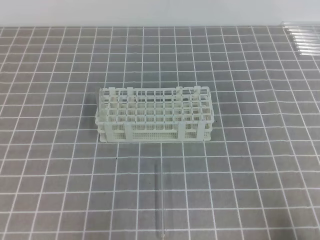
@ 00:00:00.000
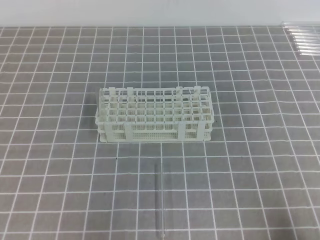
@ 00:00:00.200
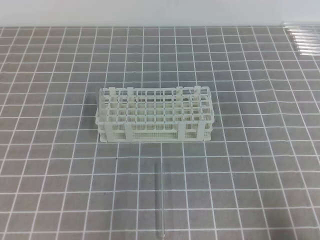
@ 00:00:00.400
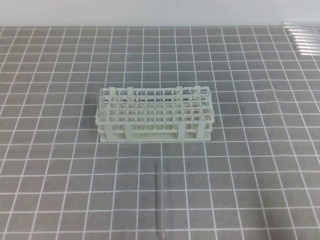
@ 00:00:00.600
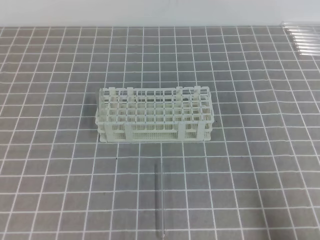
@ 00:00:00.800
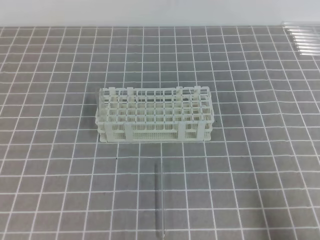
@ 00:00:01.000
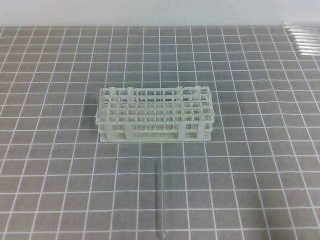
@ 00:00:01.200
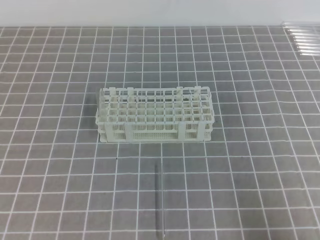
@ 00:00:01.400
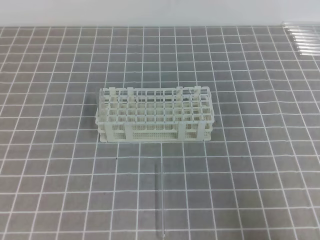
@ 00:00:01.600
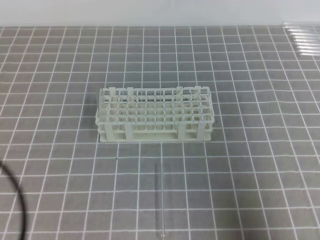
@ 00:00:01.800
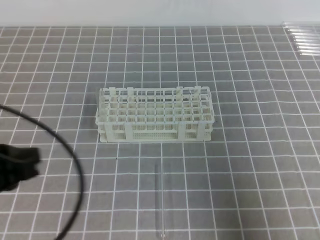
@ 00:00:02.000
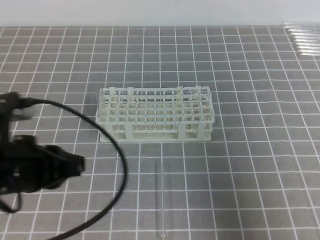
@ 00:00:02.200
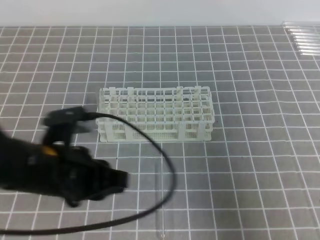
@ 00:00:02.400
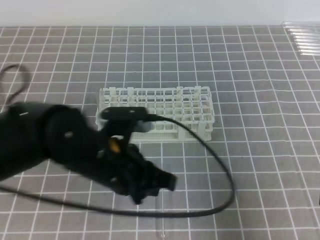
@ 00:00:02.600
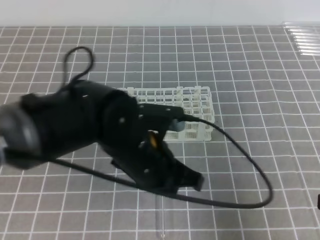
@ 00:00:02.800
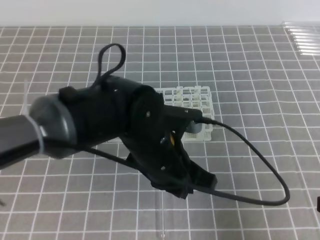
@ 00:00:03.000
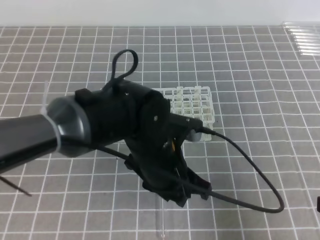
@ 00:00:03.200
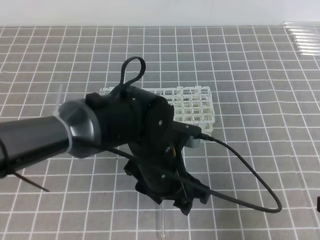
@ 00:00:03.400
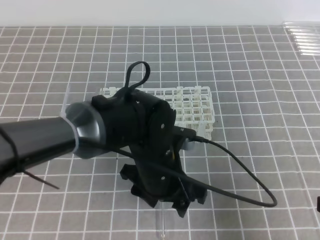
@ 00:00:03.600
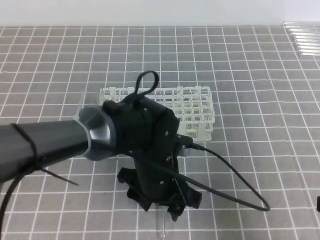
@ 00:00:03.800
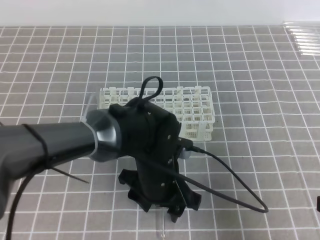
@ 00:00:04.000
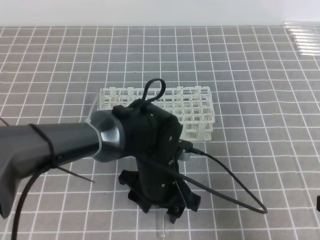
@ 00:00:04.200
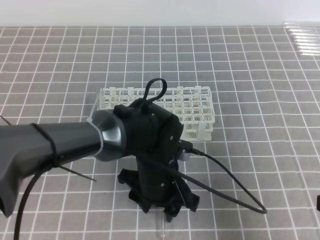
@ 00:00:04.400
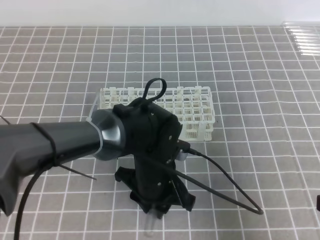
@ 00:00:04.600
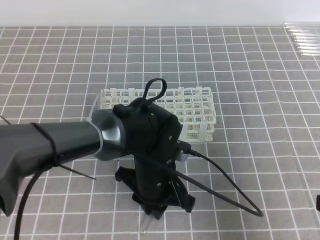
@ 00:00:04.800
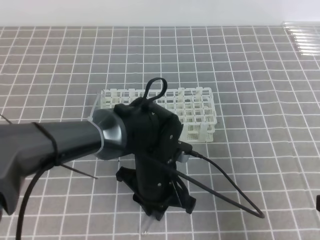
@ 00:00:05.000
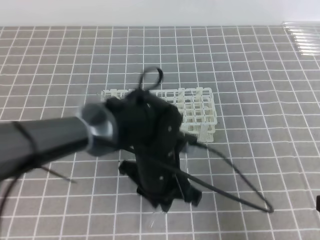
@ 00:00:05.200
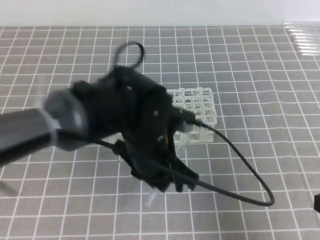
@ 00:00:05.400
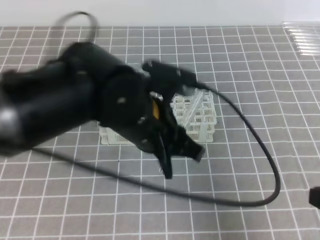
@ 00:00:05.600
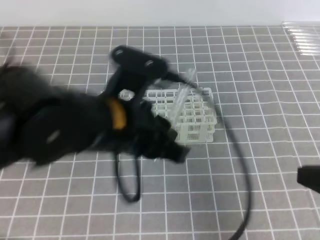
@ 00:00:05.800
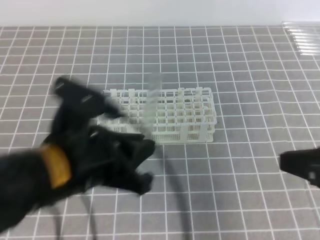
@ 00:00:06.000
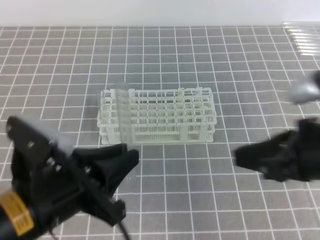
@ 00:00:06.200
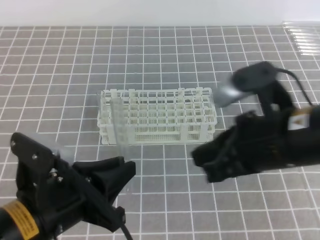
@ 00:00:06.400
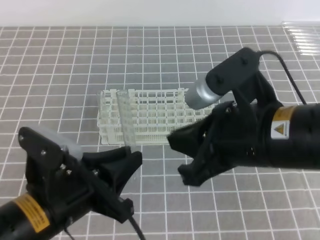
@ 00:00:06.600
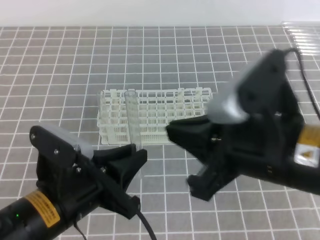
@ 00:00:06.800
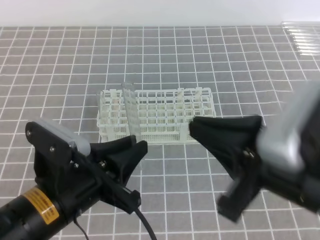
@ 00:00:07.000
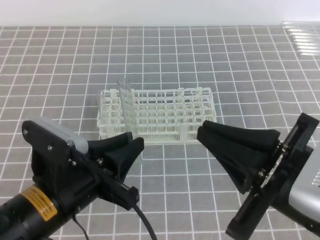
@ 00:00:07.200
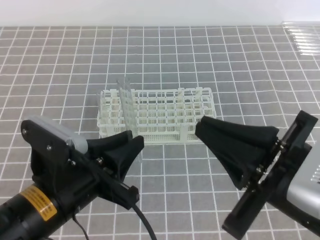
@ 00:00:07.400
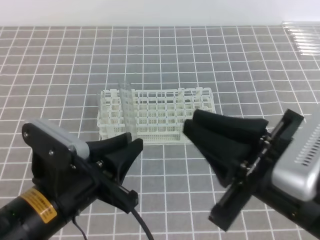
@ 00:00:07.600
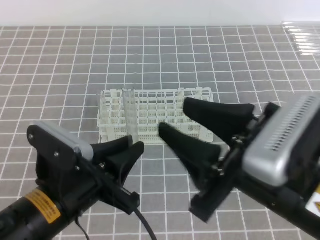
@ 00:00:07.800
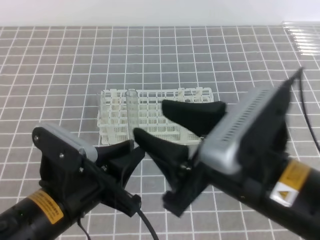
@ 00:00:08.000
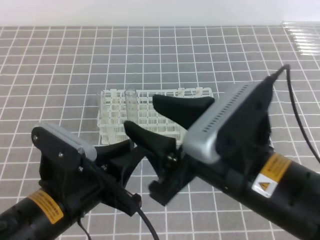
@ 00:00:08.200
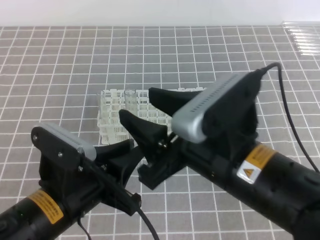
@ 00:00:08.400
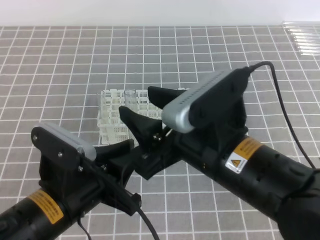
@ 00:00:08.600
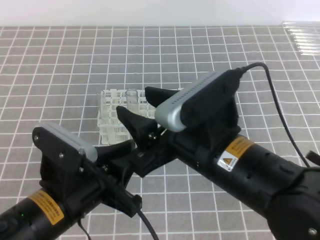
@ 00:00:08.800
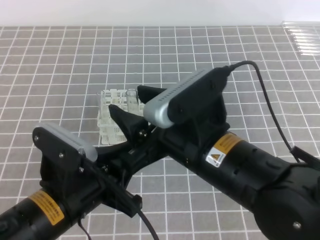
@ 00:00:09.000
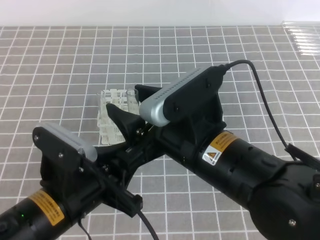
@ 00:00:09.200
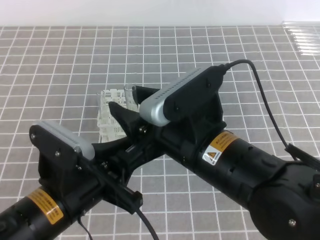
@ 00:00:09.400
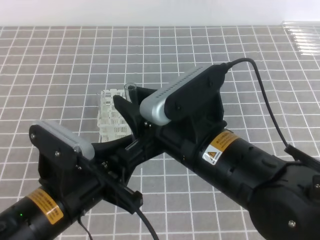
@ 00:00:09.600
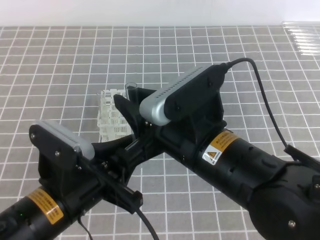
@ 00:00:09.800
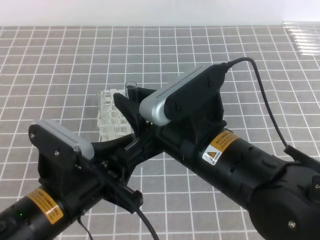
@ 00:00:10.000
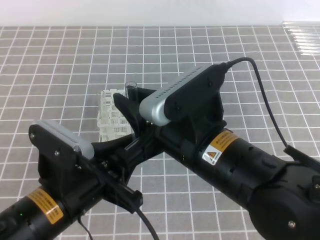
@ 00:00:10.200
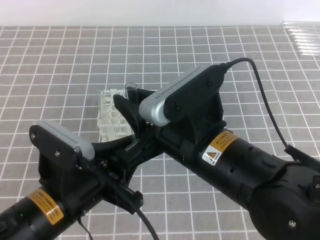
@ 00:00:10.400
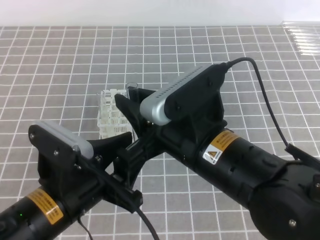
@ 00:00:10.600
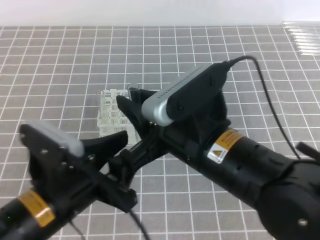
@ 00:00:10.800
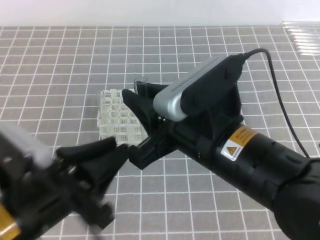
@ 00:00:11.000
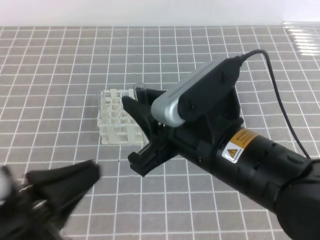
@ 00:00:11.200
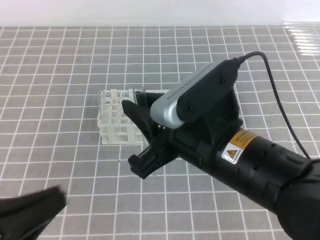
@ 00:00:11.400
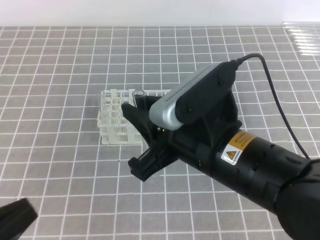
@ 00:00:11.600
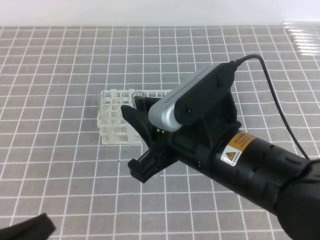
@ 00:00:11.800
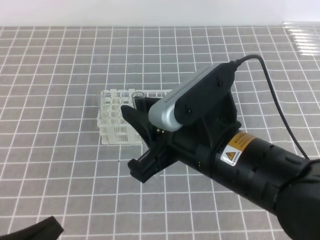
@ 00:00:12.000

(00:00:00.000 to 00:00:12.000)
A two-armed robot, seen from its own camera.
00:00:00.000 - 00:00:01.600: The left gripper heads upward, covering roughly 10 cm. The right gripper moves upward, approximately 5 cm.
00:00:01.600 - 00:00:03.000: The right gripper shifts by approximately 5 cm, while the left gripper travels to the right and forward by about 30 cm.
00:00:03.000 - 00:00:04.400: The left gripper travels downward by roughly 10 cm, and opens its fingers.
00:00:04.400 - 00:00:06.000: The right gripper shifts by roughly 5 cm. The left gripper goes about 20 cm upward, to the left and backward, and closes up.
00:00:06.000 - 00:00:07.600: The left gripper moves downward, about 5 cm. The right gripper is displaced to the left by some 10 cm.
00:00:07.600 - 00:00:09.000: The right gripper heads to the left and forward, covering some 10 cm, and opens its fingers.
00:00:09.000 - 00:00:10.400: The right gripper closes up.
00:00:10.400 - 00:00:12.000: The left gripper goes some 15 cm to the left and backward.

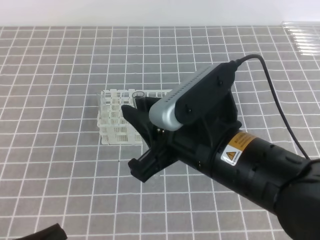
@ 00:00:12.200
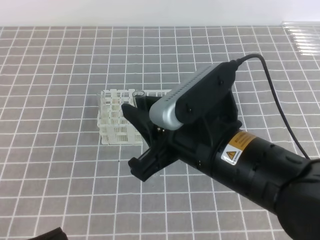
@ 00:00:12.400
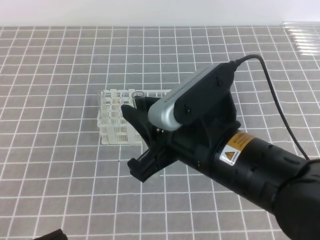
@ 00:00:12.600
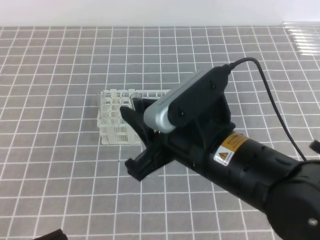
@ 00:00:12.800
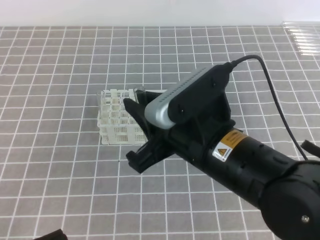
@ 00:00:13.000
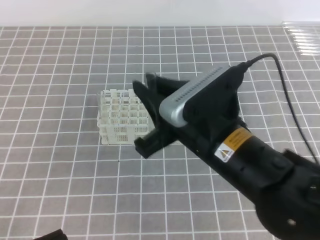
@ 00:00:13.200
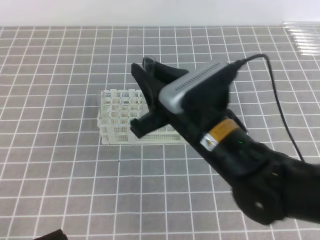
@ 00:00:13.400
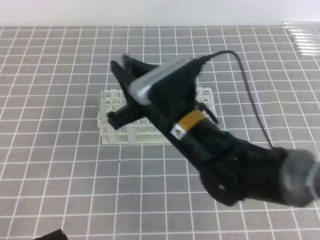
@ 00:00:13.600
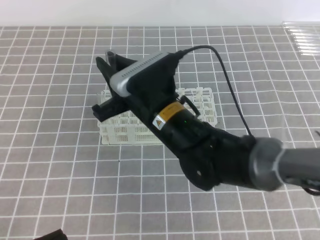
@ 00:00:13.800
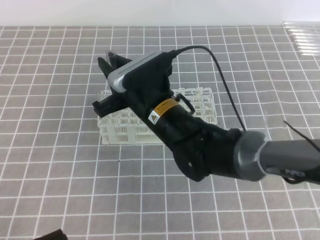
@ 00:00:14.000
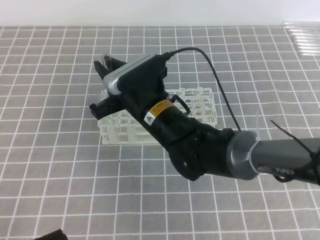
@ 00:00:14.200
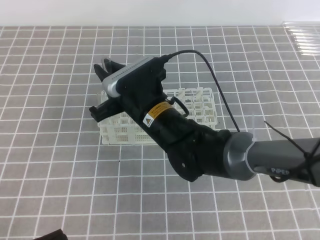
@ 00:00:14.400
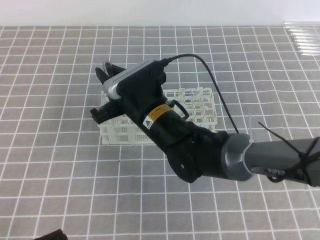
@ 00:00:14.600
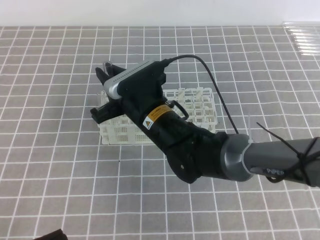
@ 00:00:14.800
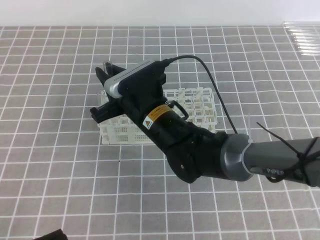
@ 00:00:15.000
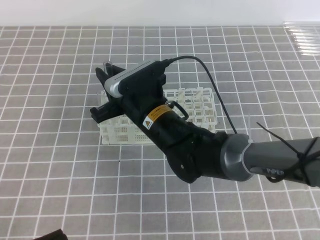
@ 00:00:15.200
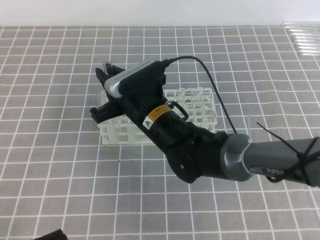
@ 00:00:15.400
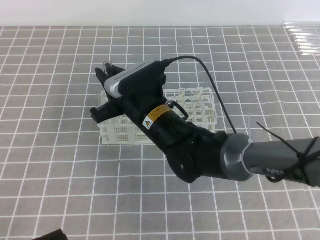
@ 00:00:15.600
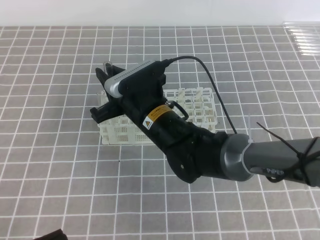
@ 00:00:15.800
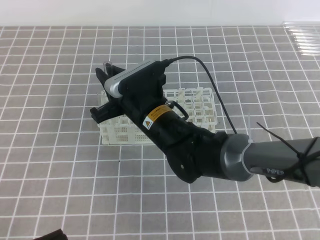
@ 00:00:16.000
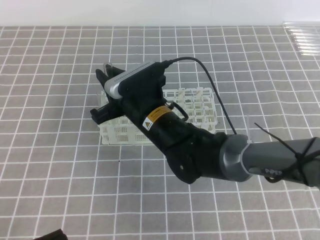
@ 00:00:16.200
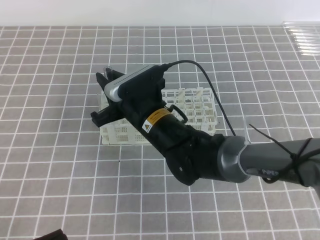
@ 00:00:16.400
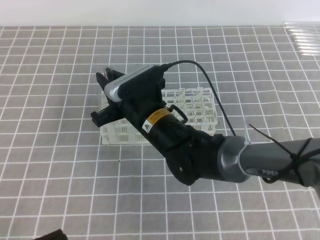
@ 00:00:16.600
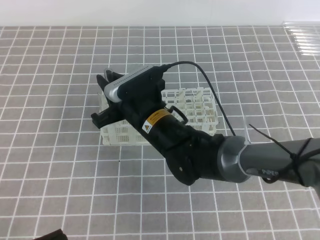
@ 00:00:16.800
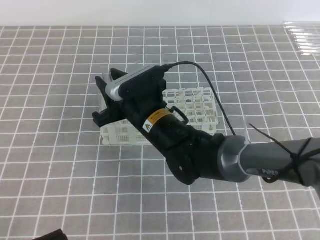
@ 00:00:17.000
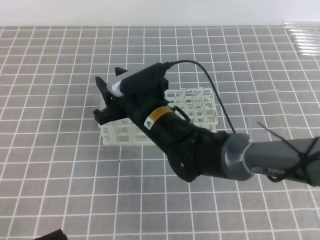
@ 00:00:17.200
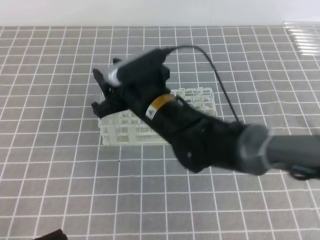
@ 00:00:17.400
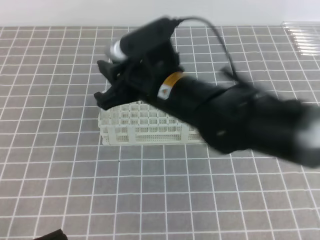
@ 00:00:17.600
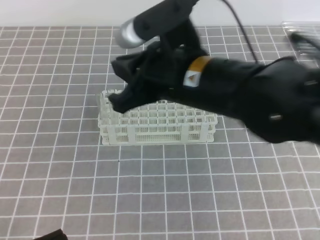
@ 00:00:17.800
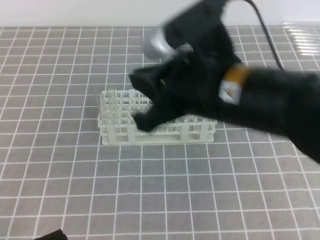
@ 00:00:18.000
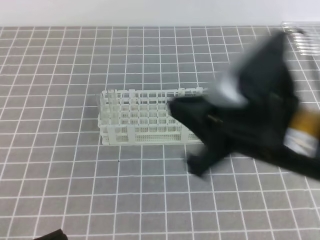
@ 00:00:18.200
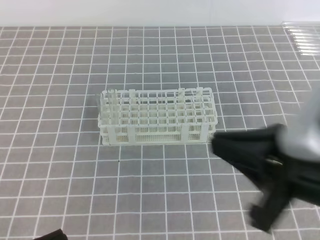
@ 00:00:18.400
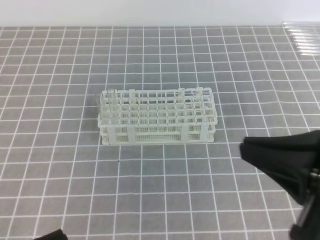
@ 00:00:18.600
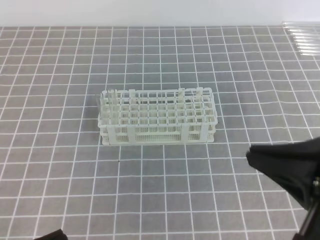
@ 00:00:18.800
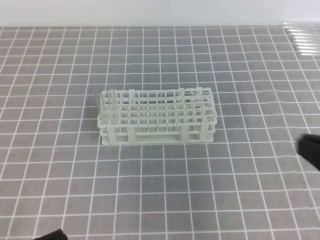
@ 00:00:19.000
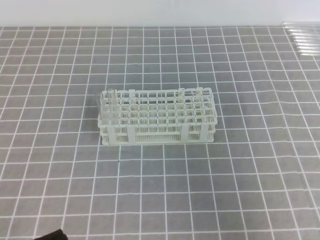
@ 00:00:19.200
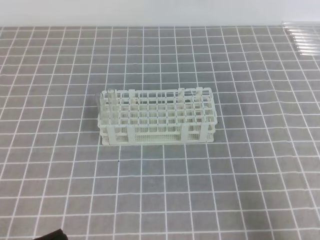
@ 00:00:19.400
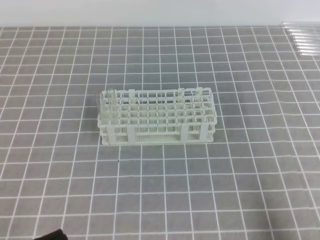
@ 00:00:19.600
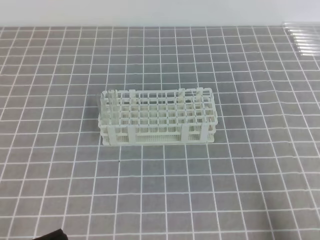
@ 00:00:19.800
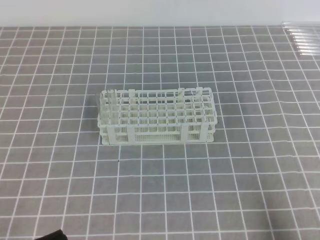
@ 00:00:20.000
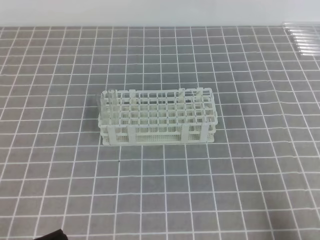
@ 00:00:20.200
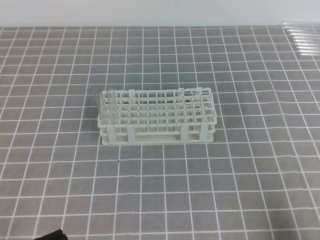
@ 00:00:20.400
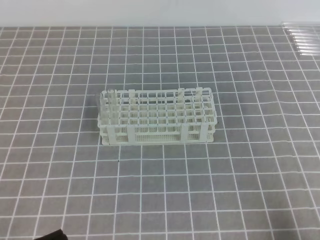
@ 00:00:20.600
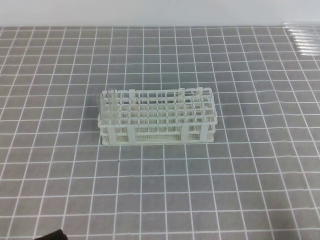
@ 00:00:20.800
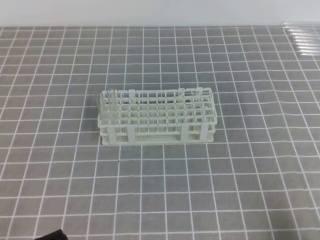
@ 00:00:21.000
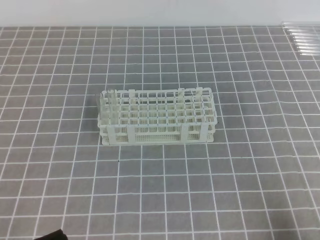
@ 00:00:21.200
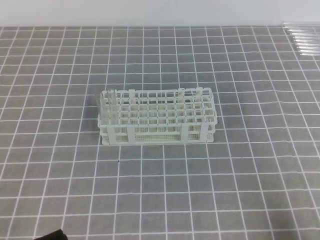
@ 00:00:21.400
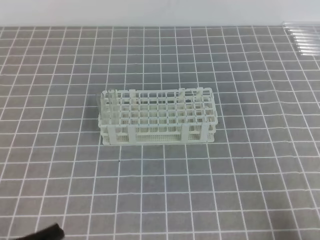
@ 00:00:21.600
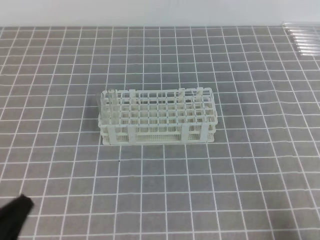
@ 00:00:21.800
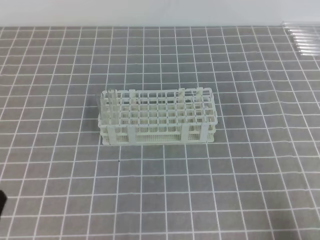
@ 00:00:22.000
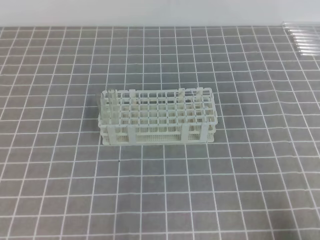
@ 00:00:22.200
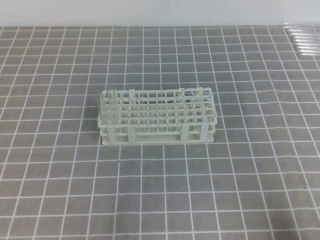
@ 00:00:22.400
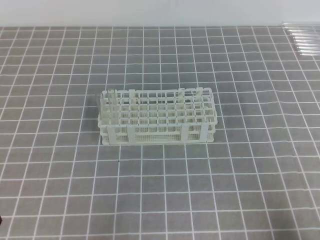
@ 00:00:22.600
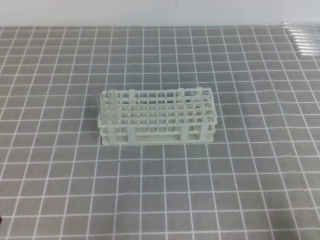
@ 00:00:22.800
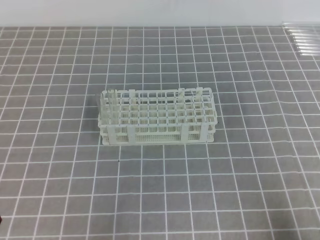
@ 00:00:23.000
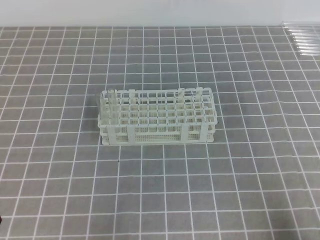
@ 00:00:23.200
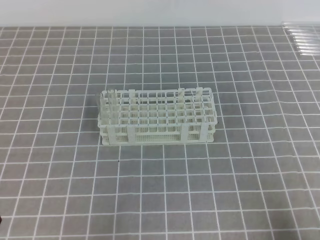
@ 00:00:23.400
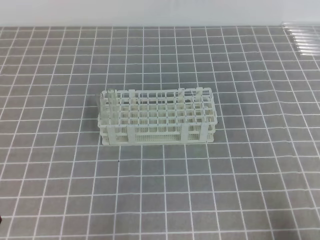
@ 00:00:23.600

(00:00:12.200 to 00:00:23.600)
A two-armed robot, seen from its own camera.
00:00:12.200 - 00:00:13.600: The right gripper moves forward, approximately 10 cm.
00:00:13.600 - 00:00:15.000: The right gripper shifts roughly 10 cm forward and downward.
00:00:15.000 - 00:00:16.400: Both grippers stay put.
00:00:16.400 - 00:00:17.800: The right gripper travels upward, backward and to the right by approximately 15 cm, and opens and closes again.
00:00:17.800 - 00:00:19.400: The right gripper heads to the right and backward, covering some 30 cm.
00:00:19.400 - 00:00:20.800: The right gripper goes approximately 5 cm downward.
